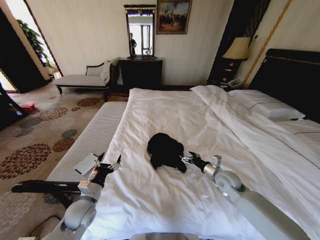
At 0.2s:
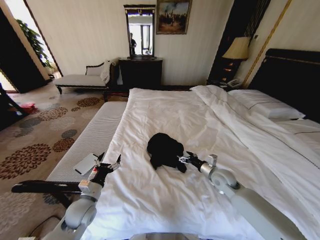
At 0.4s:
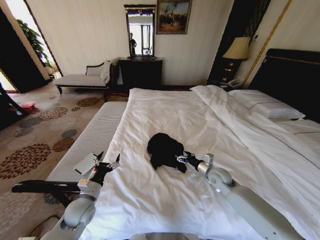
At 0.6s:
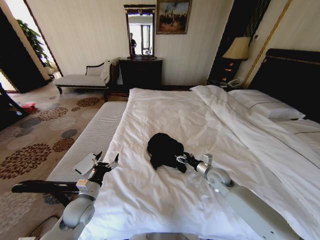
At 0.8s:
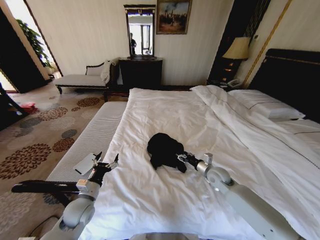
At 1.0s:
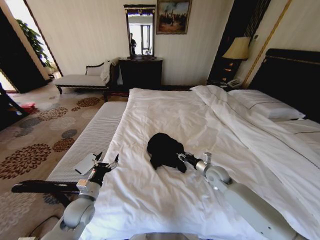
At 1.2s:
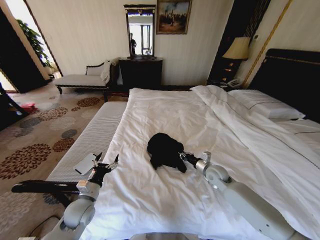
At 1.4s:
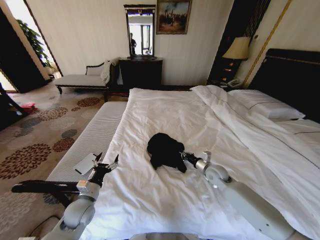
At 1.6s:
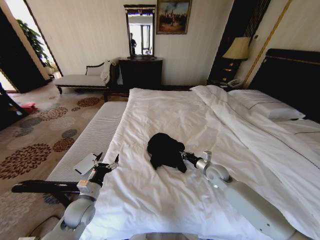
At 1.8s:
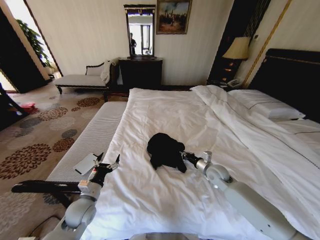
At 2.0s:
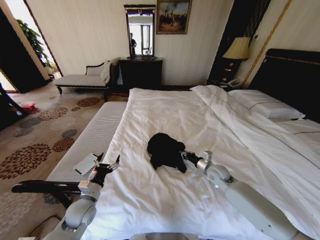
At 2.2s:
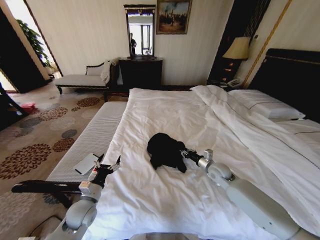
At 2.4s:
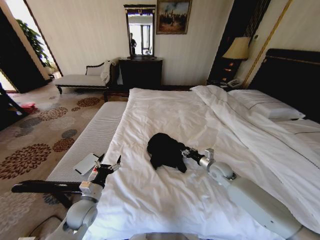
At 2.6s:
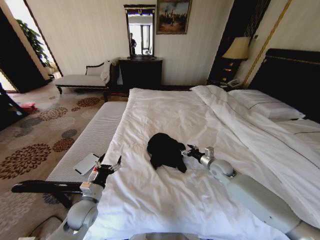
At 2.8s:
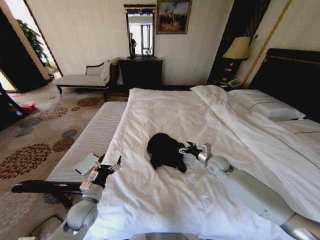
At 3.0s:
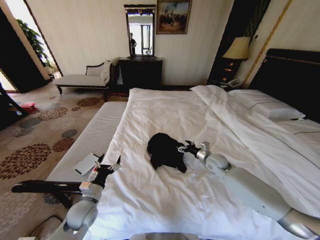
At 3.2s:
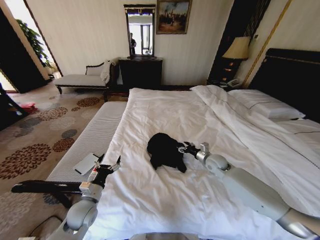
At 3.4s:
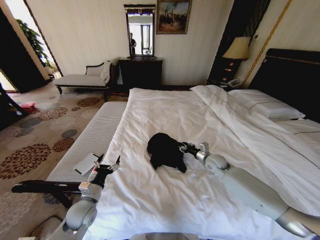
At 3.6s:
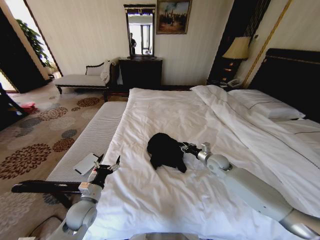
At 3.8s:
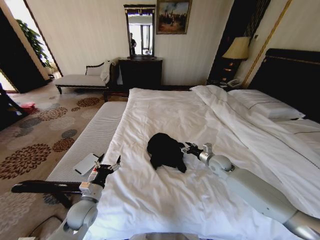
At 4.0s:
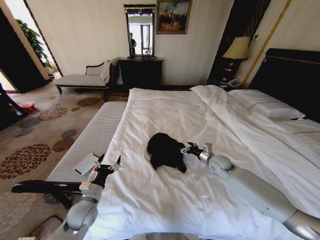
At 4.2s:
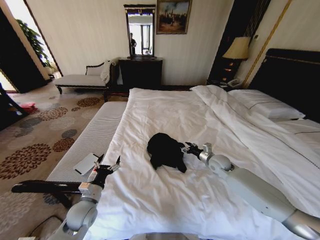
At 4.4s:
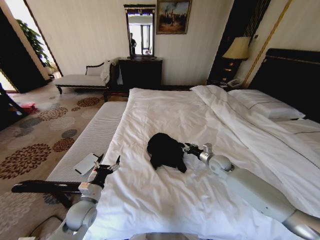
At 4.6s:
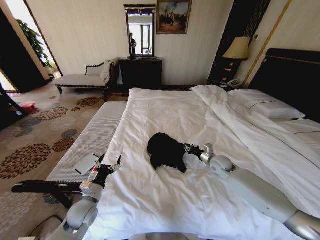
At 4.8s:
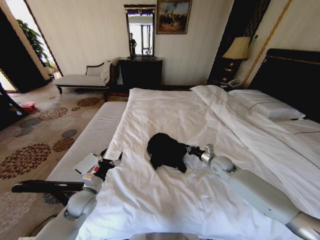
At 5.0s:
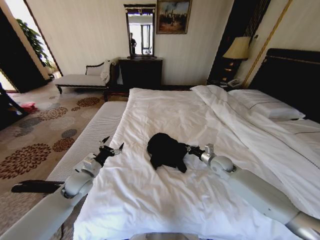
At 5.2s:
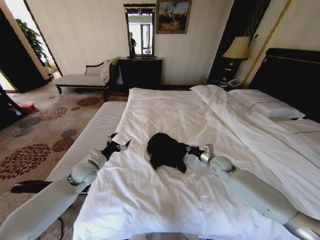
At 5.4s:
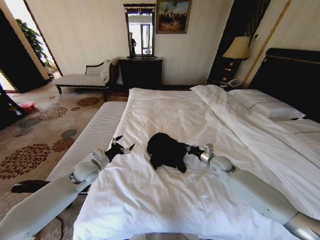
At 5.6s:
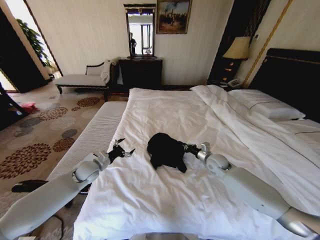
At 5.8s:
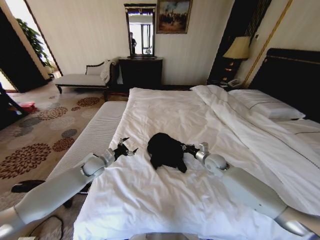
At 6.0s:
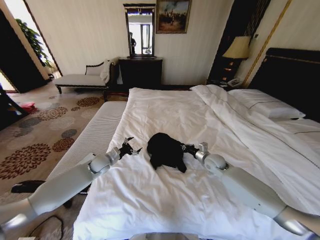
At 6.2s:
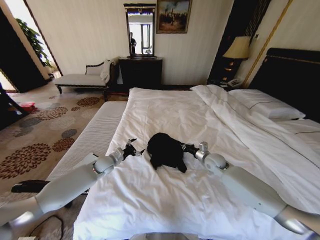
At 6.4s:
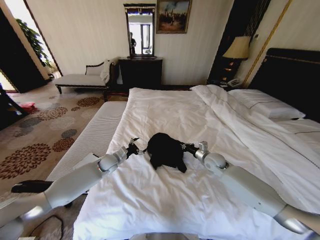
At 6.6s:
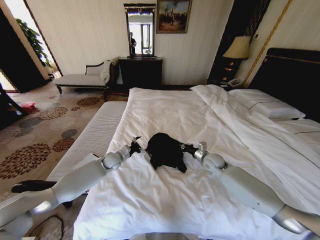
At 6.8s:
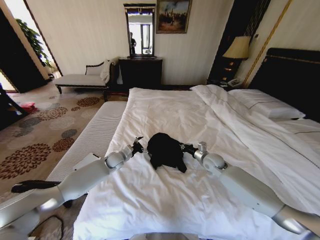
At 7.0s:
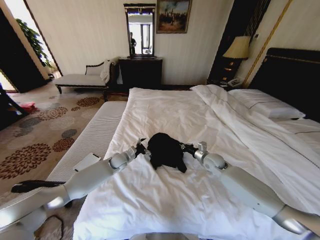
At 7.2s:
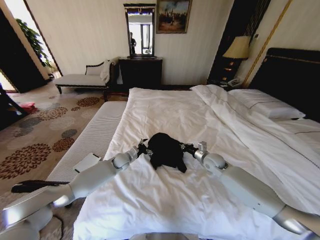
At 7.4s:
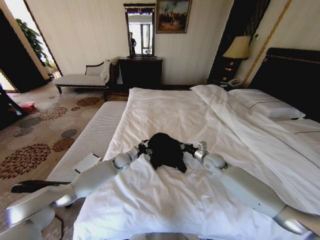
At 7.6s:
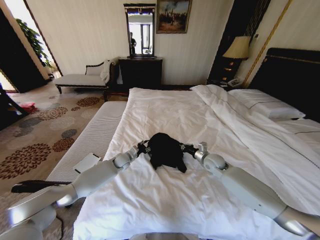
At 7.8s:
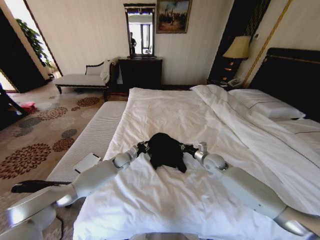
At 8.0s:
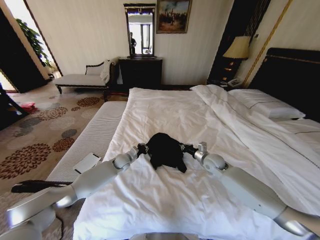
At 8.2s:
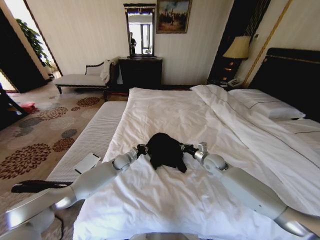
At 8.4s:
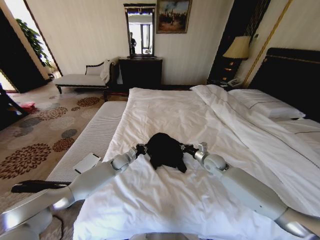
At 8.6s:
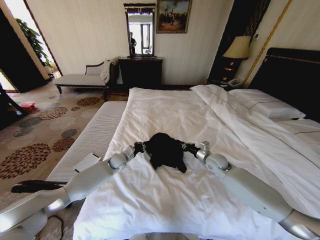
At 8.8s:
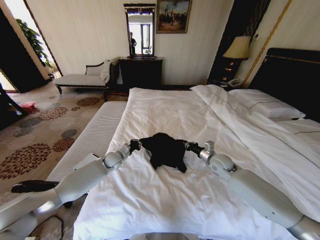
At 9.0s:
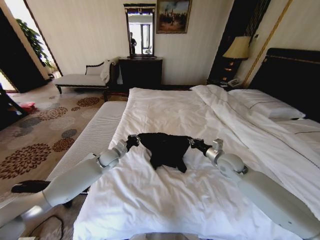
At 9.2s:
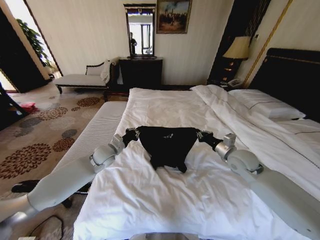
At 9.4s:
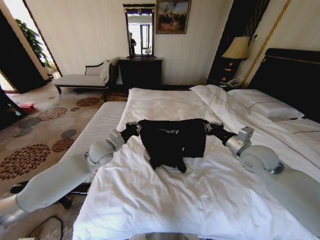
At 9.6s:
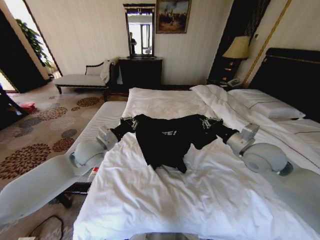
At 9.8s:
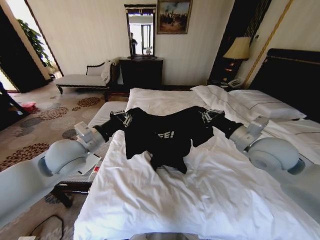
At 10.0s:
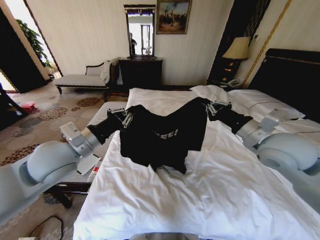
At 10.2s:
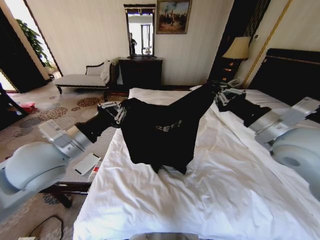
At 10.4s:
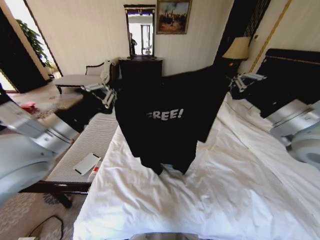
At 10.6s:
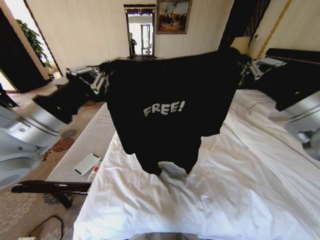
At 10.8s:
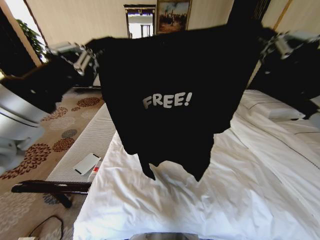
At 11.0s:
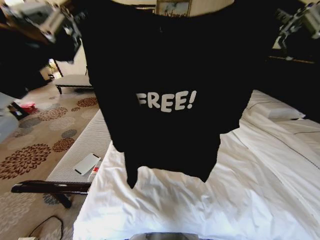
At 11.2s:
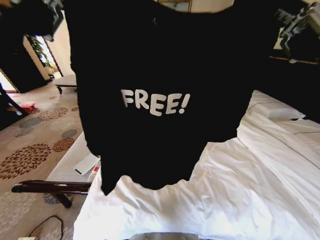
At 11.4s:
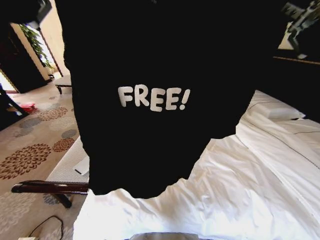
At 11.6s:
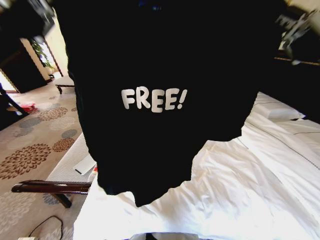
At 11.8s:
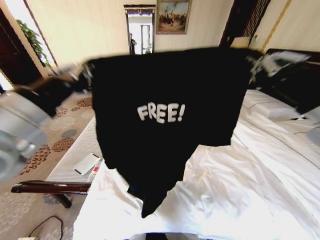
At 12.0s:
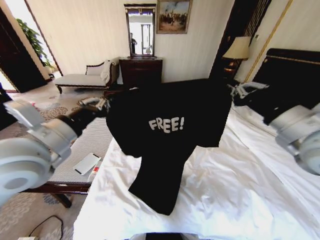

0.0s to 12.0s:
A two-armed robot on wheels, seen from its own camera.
Task of the whole recording: Fold the clothes on the bed.
0.0s to 1.6s: The right gripper shifts by roughly 5 cm, and closes its fingers.
1.6s to 3.0s: The right gripper shifts by approximately 5 cm, and opens.
3.0s to 4.4s: The right gripper closes its fingers.
4.4s to 6.0s: The left gripper travels forward by some 20 cm. The right gripper closes.
6.0s to 7.6s: The left gripper is displaced to the right, downward and forward by about 15 cm, and closes its fingers.
7.6s to 9.0s: Both grippers travel together upward, approximately 5 cm. The left gripper closes.
9.0s to 10.4s: The grippers both shift upward and backward by some 30 cm.
10.4s to 12.0s: The left gripper goes upward and returns, approximately 10 cm each way, while the right gripper travels backward and back again, some 10 cm each way.

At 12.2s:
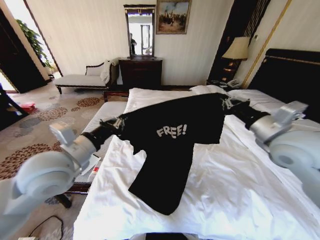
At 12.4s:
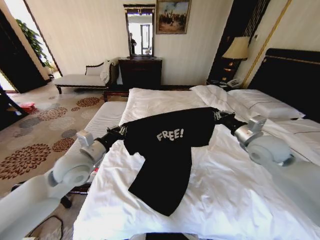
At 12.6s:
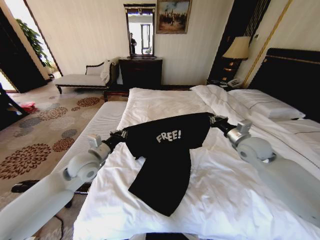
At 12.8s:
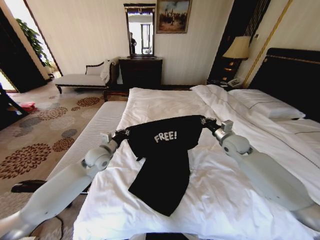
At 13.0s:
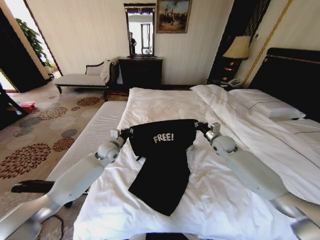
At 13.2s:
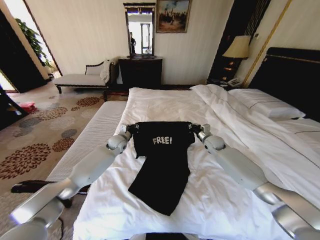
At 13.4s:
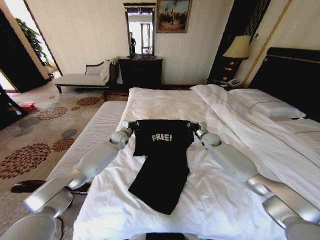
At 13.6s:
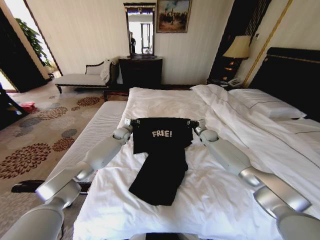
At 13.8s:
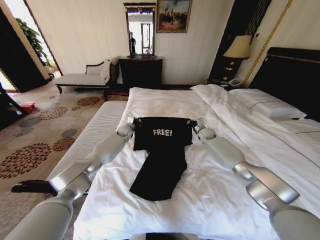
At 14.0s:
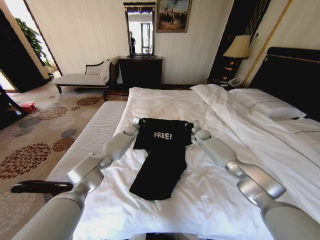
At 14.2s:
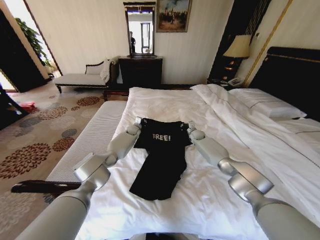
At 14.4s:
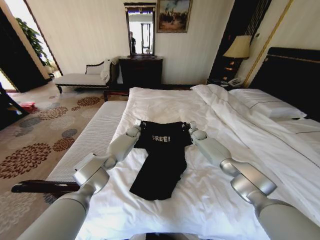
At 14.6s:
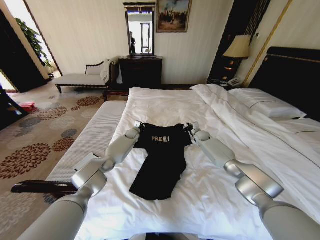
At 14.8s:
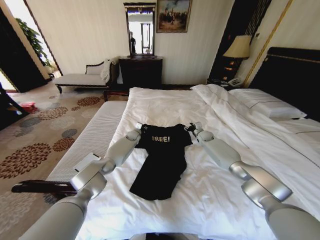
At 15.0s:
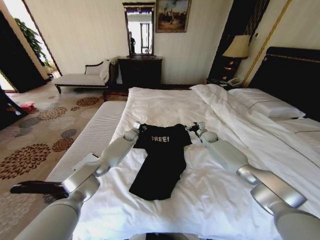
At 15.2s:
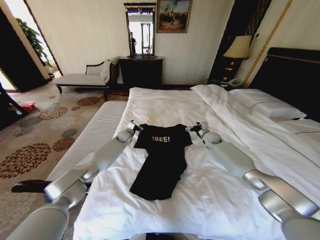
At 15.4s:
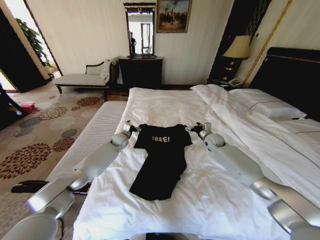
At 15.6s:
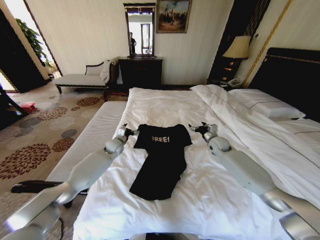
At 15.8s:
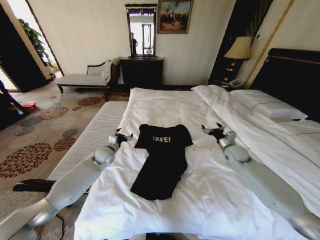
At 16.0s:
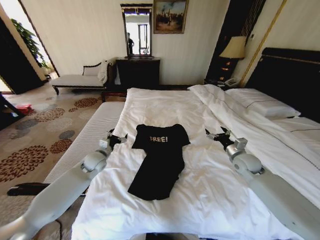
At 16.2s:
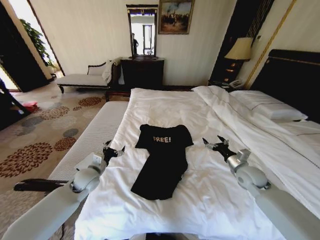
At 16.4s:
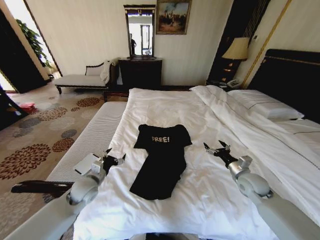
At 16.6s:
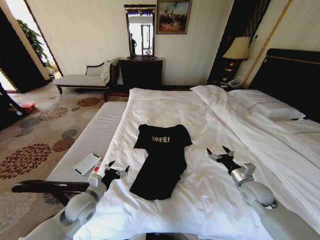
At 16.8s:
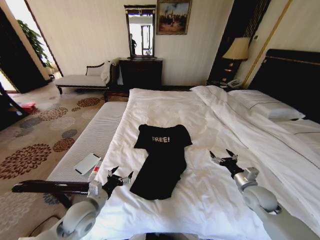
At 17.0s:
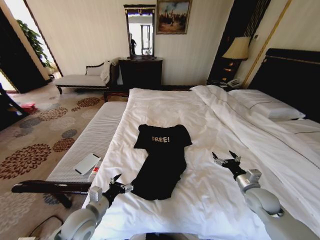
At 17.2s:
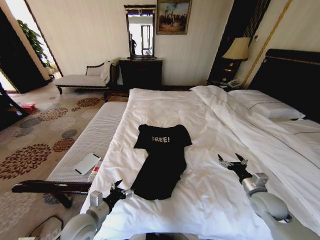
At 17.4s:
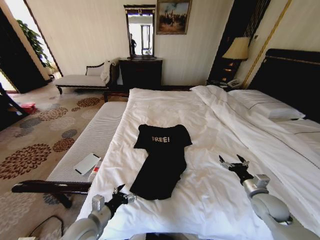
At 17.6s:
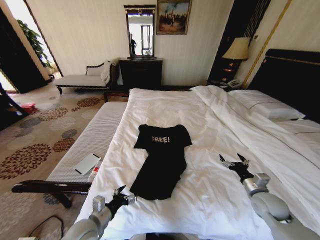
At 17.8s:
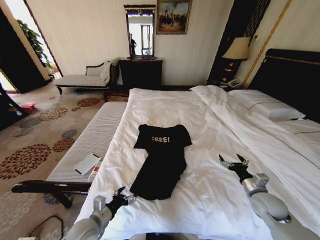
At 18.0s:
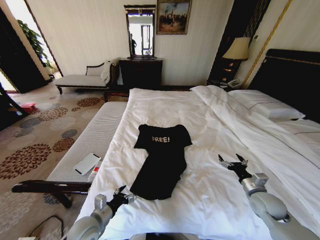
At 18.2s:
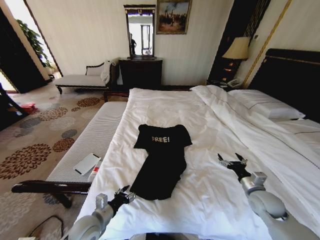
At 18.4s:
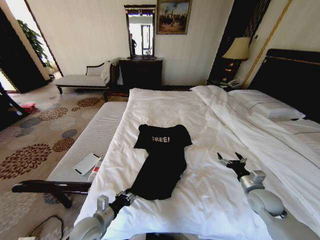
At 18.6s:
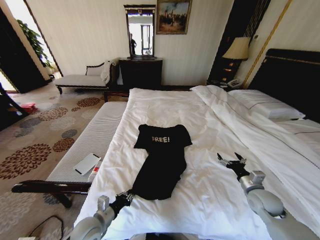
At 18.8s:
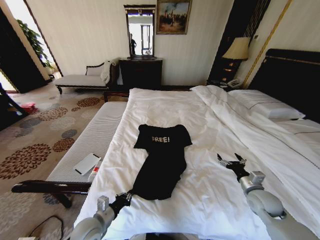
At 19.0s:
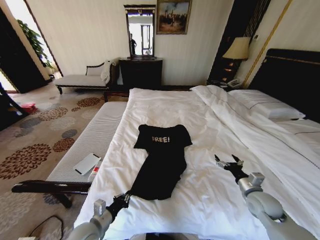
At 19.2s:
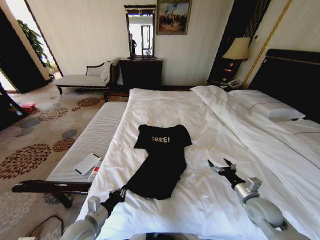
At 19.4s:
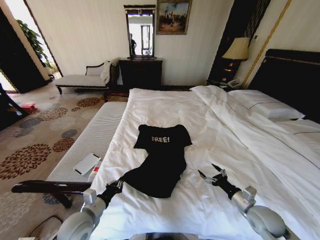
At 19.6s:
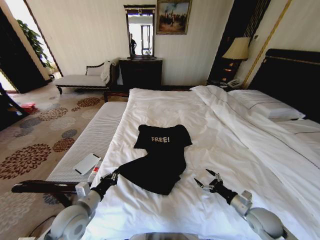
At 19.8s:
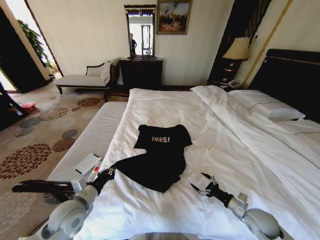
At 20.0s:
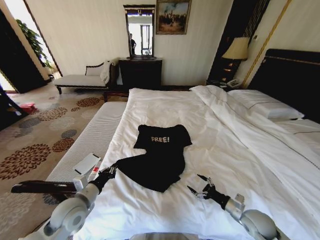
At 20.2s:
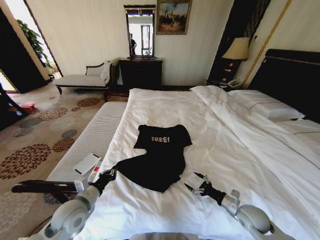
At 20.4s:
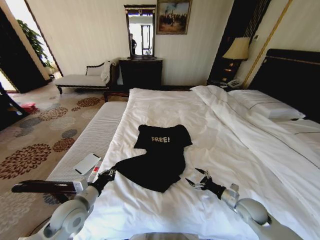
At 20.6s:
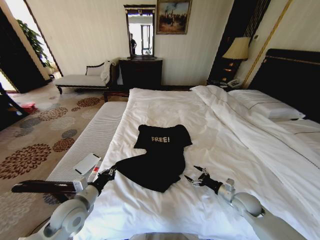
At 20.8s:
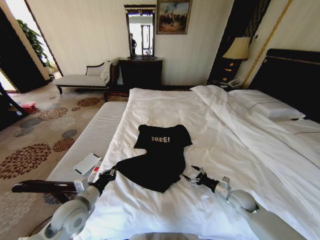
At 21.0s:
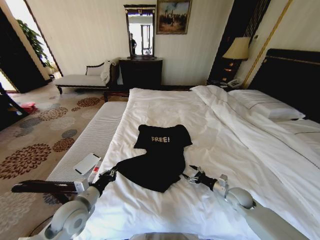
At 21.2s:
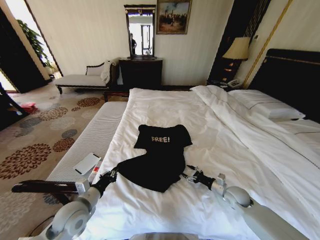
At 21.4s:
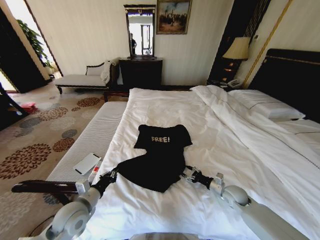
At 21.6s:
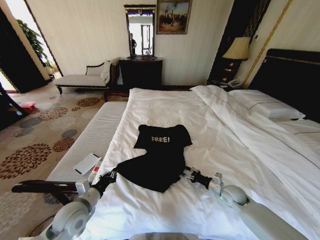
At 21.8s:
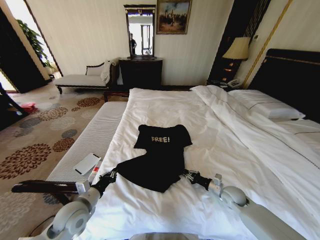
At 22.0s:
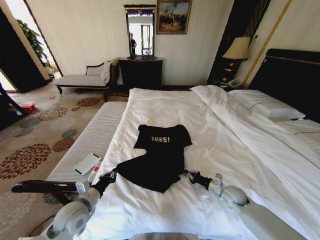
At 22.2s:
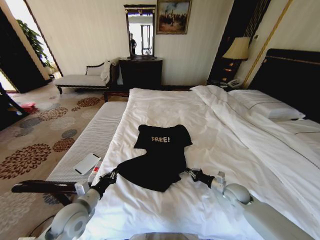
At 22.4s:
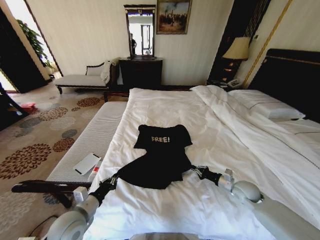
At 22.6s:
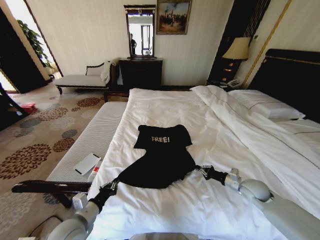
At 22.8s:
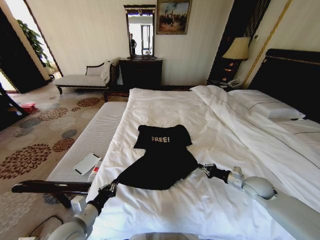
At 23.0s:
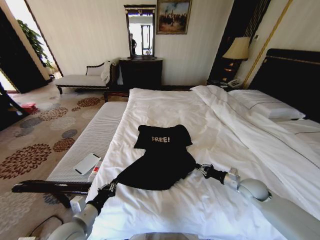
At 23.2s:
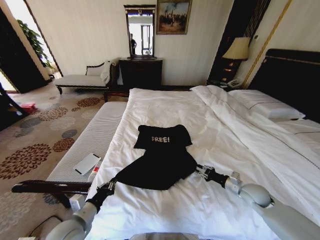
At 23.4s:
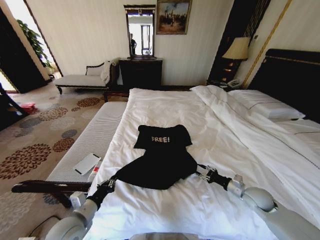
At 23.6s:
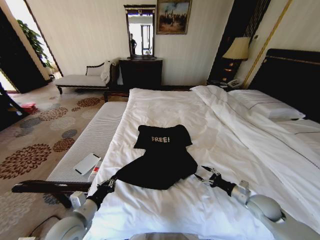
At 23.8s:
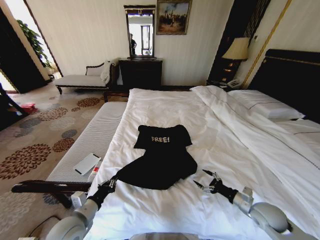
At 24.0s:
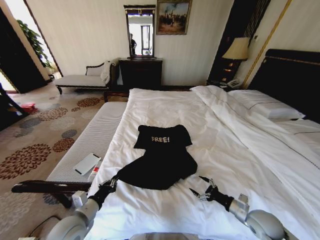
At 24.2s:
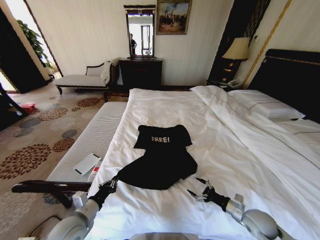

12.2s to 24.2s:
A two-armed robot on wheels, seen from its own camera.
Task of the whole recording: Fold the clothes on the bed.
12.2s to 13.8s: Both grippers travel together forward and downward, approximately 40 cm.
13.8s to 15.2s: The left gripper opens its fingers. Meanwhile the right gripper opens up.
15.2s to 16.6s: The two grippers go roughly 35 cm backward.
16.6s to 18.2s: The left gripper moves backward, some 5 cm.
18.2s to 19.8s: The left gripper shifts approximately 5 cm upward, and closes. Meanwhile the right gripper heads downward and backward, covering roughly 5 cm.
19.8s to 21.2s: The right gripper shifts about 10 cm forward.
21.2s to 22.6s: The right gripper moves upward, about 5 cm, and closes its fingers.
22.6s to 24.2s: The right gripper is displaced backward by about 10 cm, and opens its fingers.
